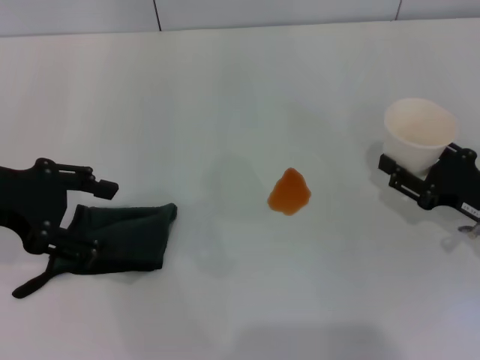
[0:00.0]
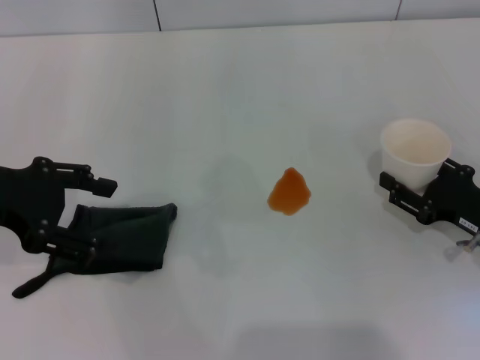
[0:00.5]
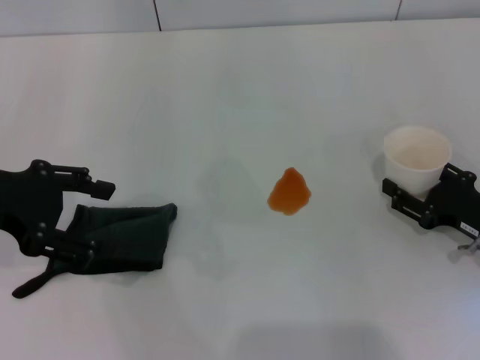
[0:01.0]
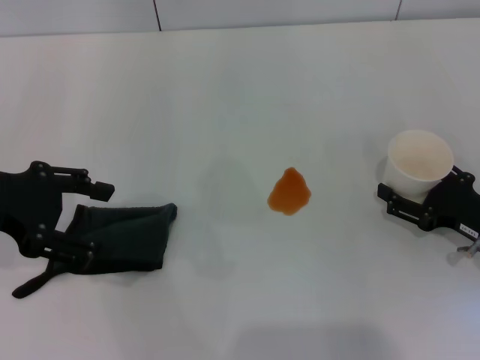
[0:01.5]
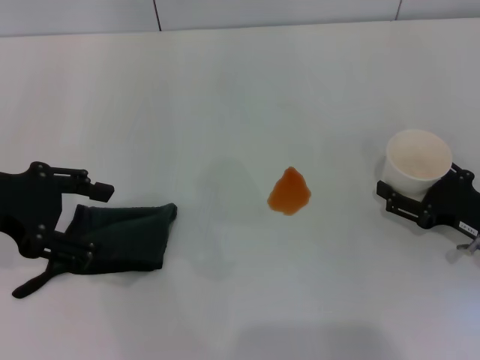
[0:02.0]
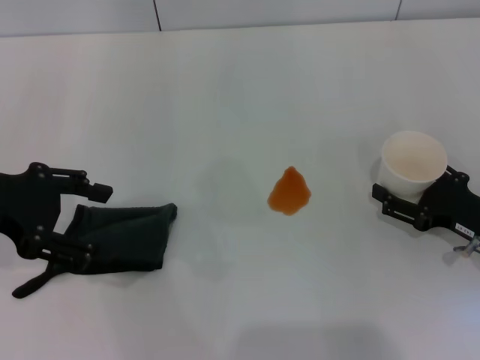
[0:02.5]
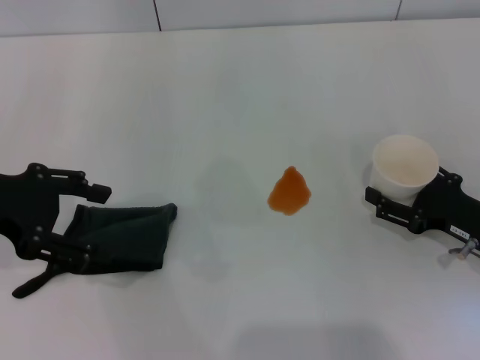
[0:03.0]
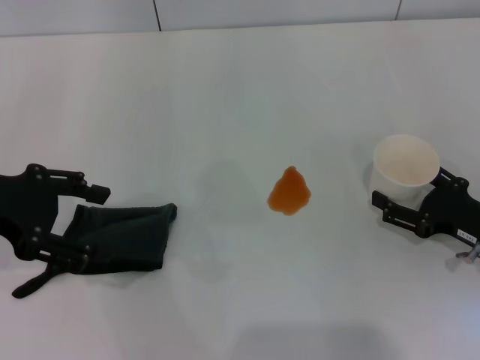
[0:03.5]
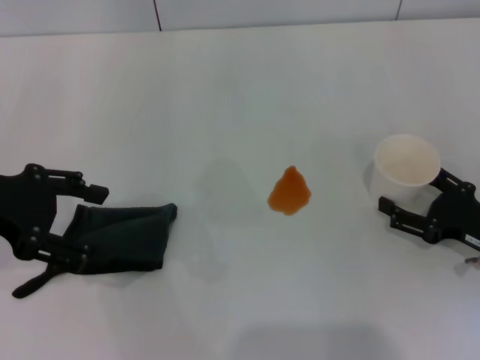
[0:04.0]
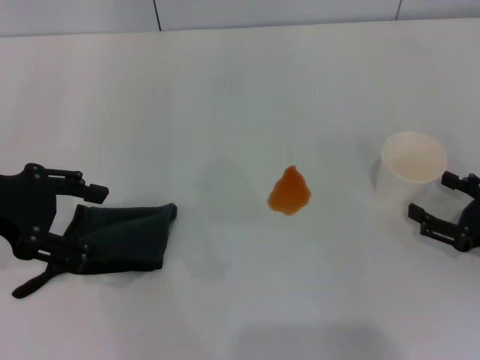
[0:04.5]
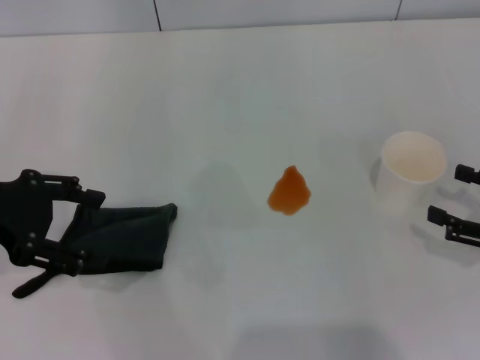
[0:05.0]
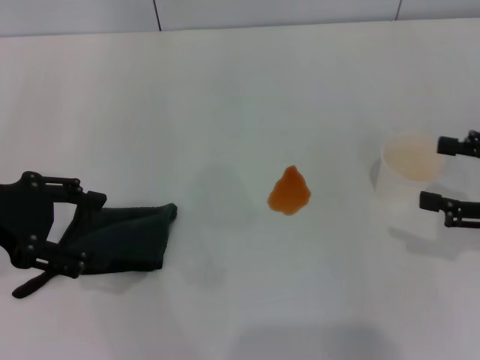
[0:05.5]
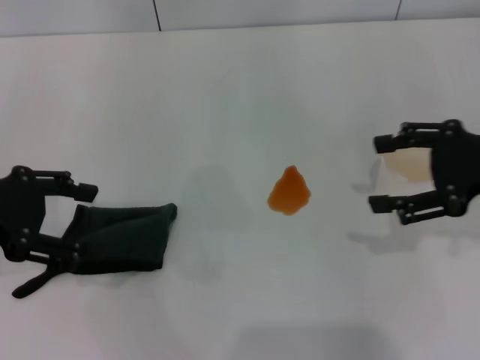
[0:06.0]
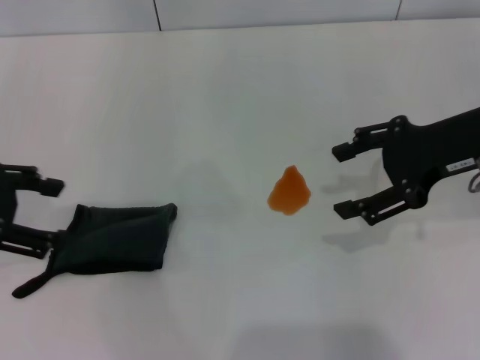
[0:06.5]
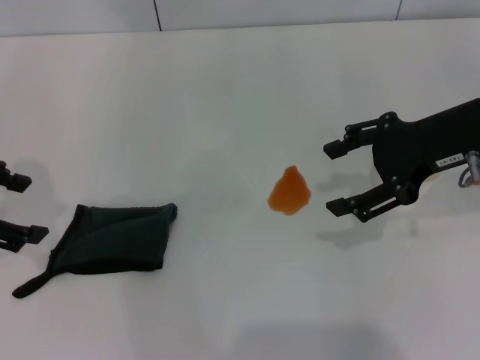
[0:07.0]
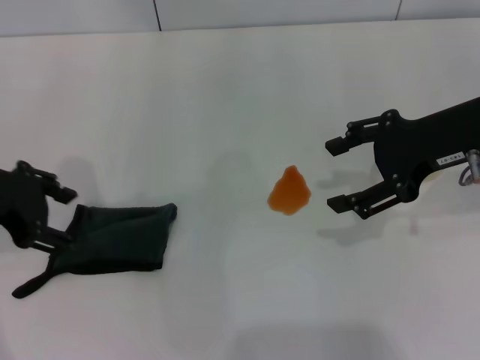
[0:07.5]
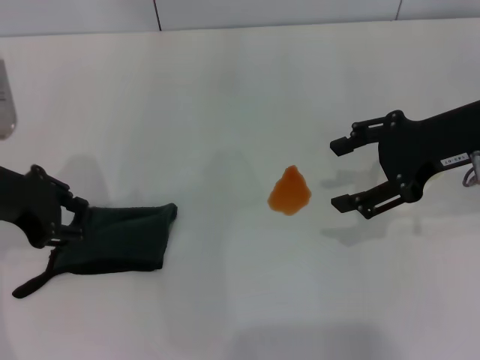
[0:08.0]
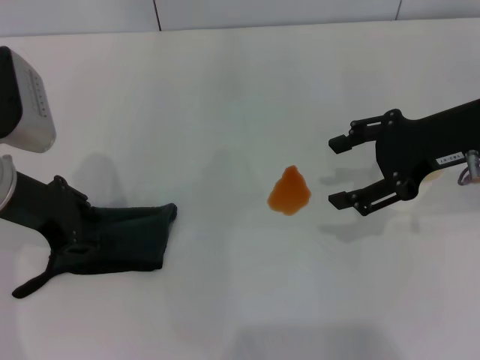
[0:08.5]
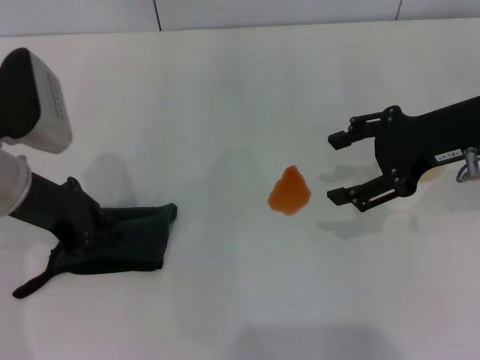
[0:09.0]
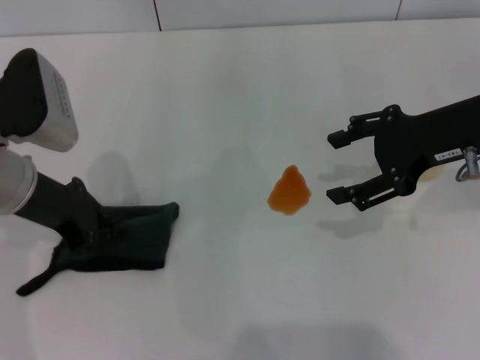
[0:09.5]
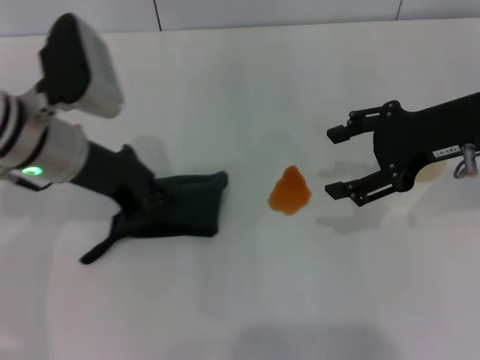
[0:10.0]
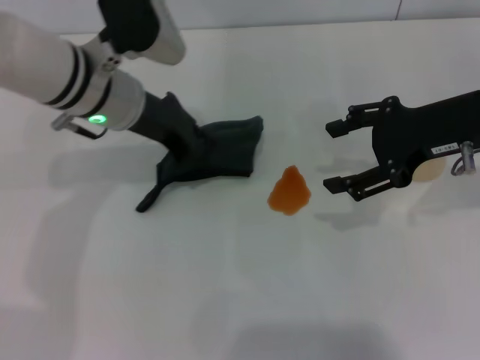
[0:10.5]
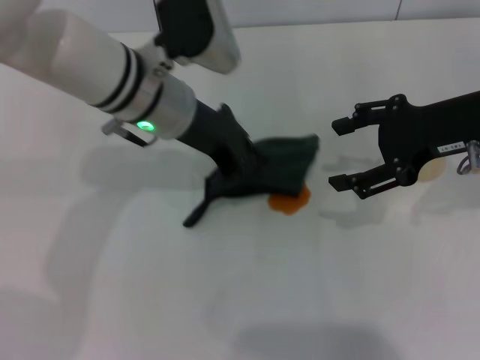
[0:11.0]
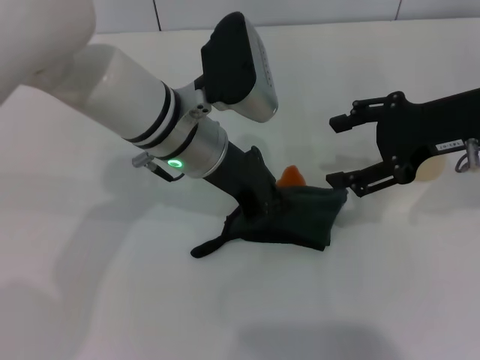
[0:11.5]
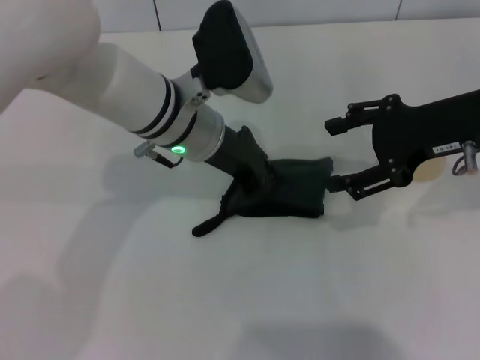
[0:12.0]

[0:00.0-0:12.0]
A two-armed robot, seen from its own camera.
Step, 0.0 to 4.5 s: Stand the paper cup upright with the right gripper.
Step, 5.0 to 9.0 s: Grasp the rag with the left gripper.
0.0 to 2.0 s: The right gripper opens its fingers.
2.0 to 4.0 s: The two grippers keep their place.
4.0 to 6.0 s: The right gripper heads upward, covering roughly 15 cm.
6.0 to 8.0 s: The right gripper ends up about 5 cm from where it was, while the left gripper shifts by roughly 5 cm.
8.0 to 10.0 s: The left gripper travels to the right by approximately 10 cm, and closes its fingers.
10.0 to 12.0 s: The left gripper shifts some 10 cm to the right.

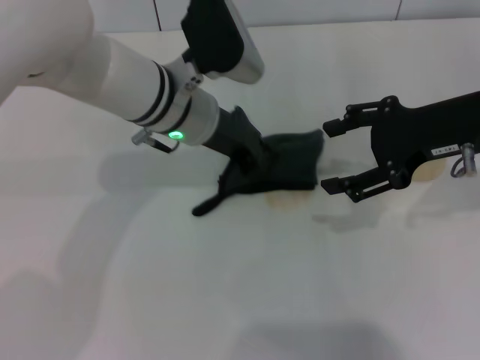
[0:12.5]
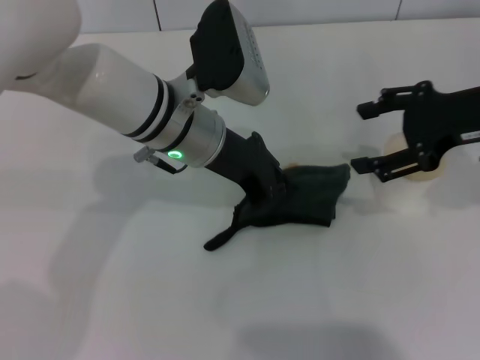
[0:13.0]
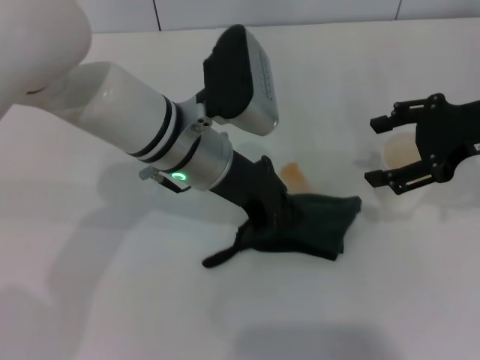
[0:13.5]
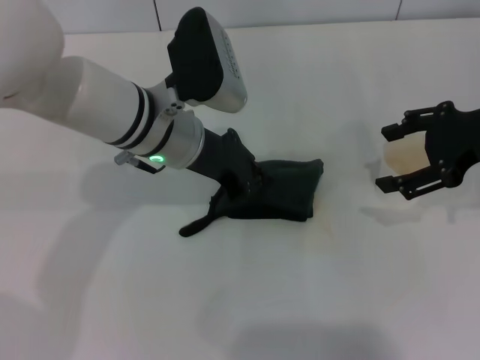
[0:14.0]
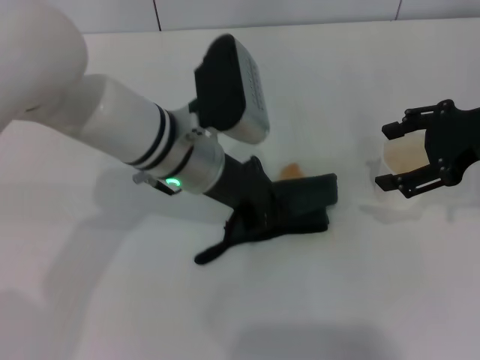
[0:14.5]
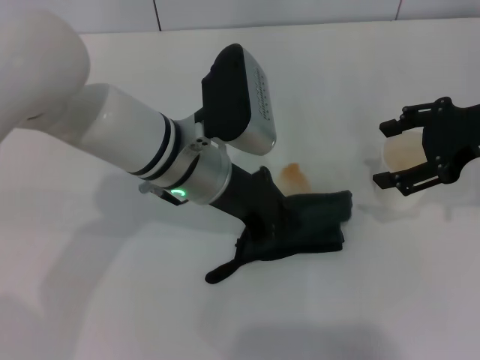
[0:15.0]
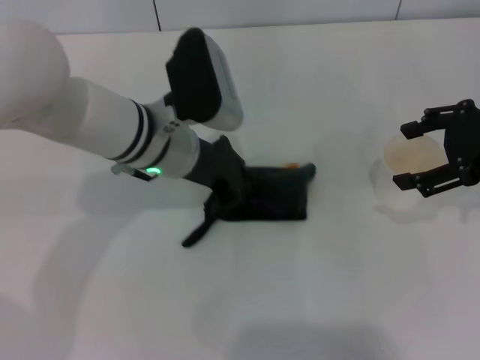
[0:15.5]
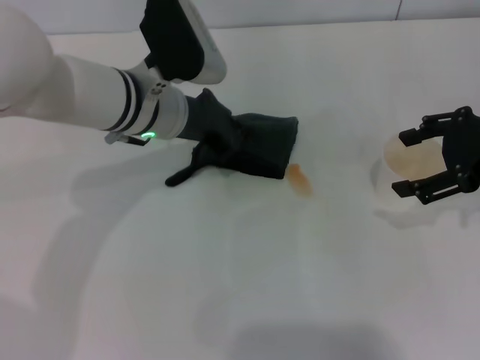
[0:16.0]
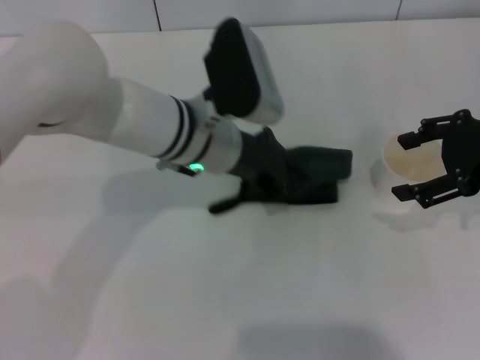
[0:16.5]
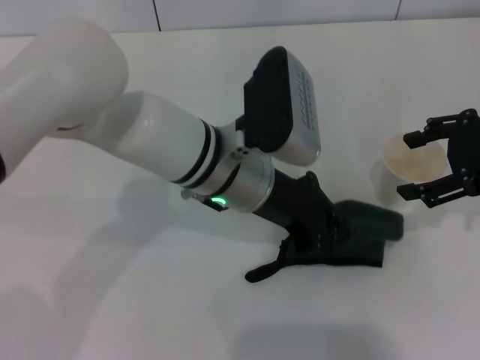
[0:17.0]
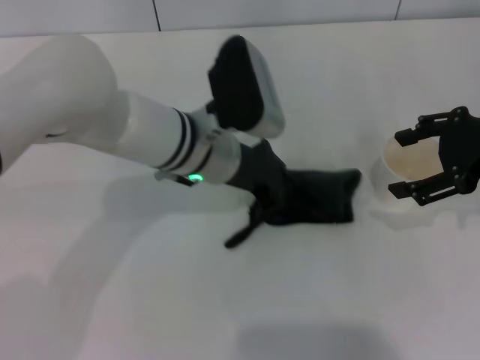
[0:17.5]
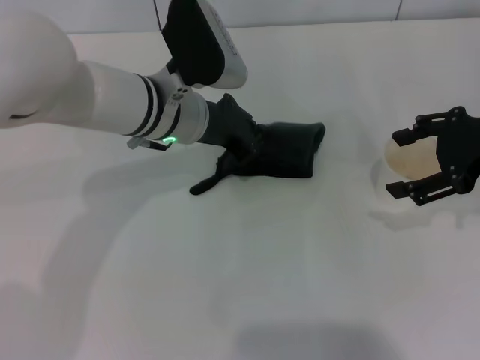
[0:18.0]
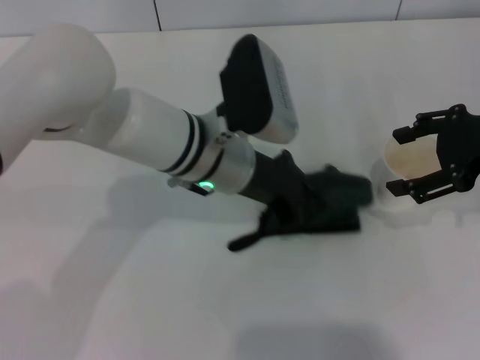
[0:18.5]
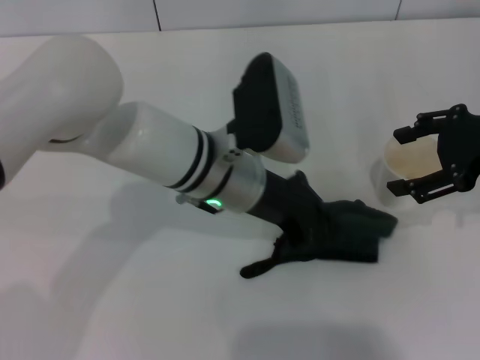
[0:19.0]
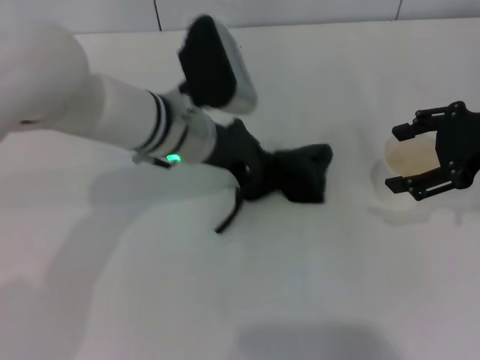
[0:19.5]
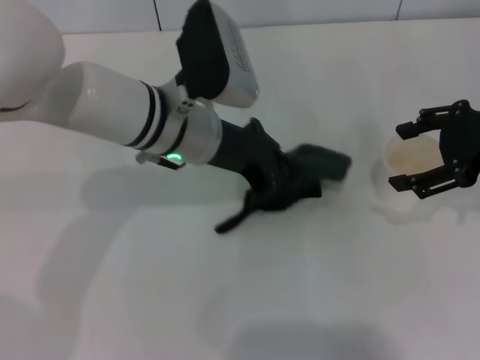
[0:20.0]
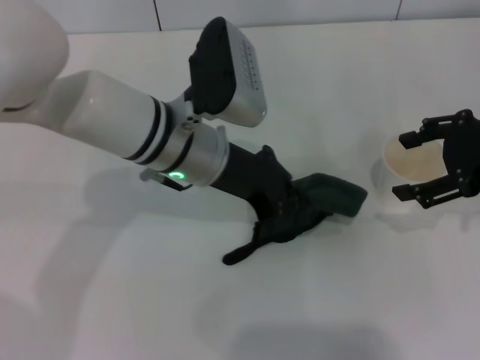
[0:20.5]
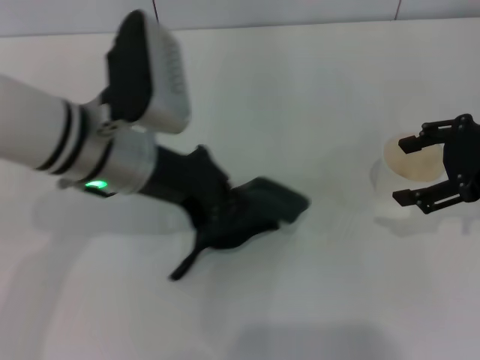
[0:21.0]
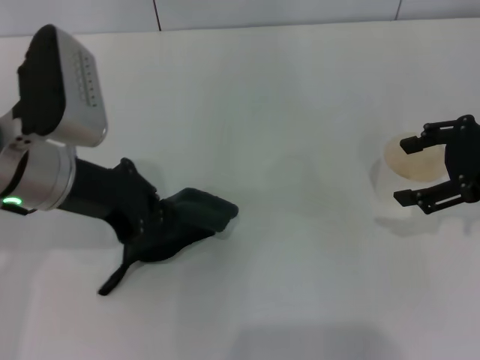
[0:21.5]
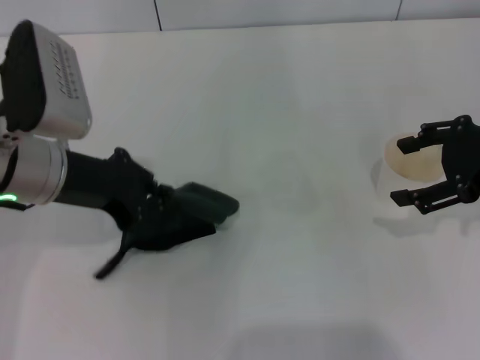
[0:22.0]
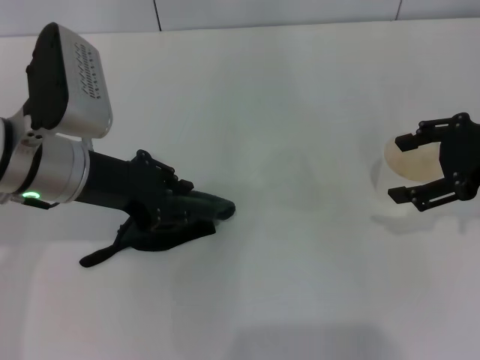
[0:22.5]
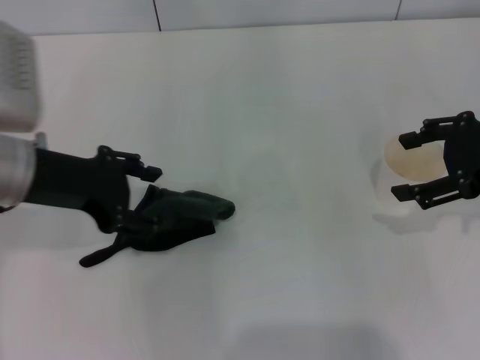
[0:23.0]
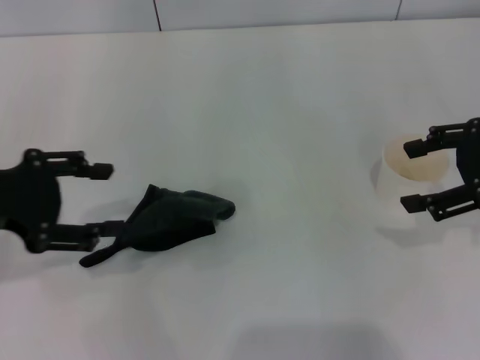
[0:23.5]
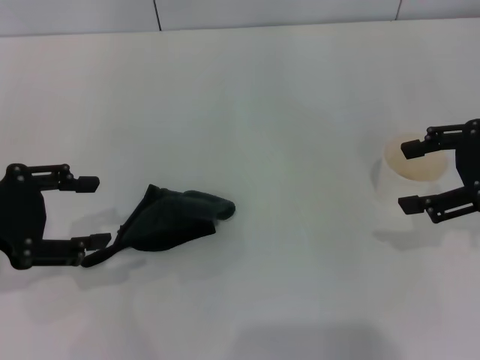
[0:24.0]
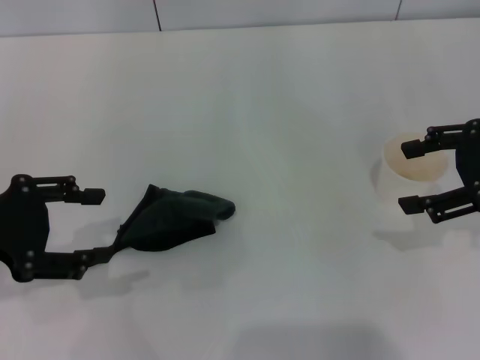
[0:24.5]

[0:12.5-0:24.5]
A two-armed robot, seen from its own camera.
Step, 12.5 to 20.5 s: Wipe the stains off the table with the left gripper.
Step, 21.5 to 23.0 s: Place the rag on the table with the left gripper.
16.5 to 18.5 s: The left gripper goes forward and backward, some 5 cm each way, reversing 2 times.
18.5 to 20.5 s: There are only small adjustments of the grippers.
20.5 to 22.5 s: The left gripper shifts some 10 cm to the left.
22.5 to 24.5 s: The left gripper shifts approximately 15 cm to the left and backward, and opens up.

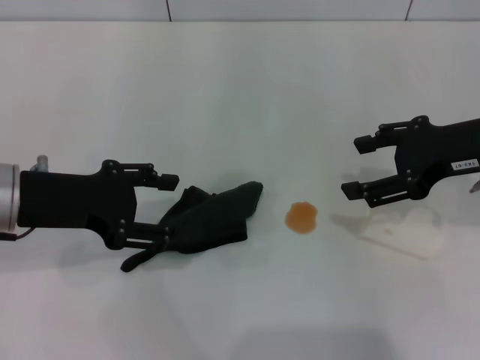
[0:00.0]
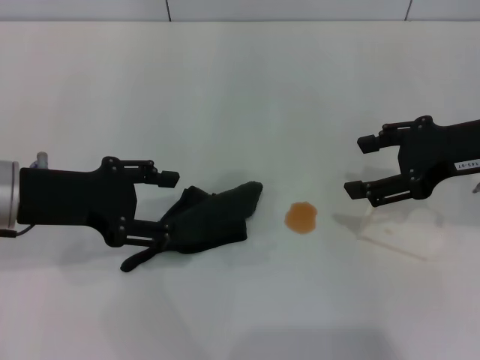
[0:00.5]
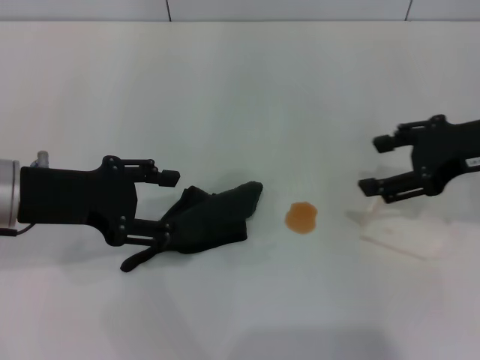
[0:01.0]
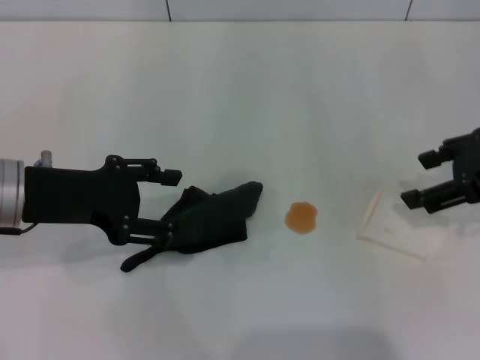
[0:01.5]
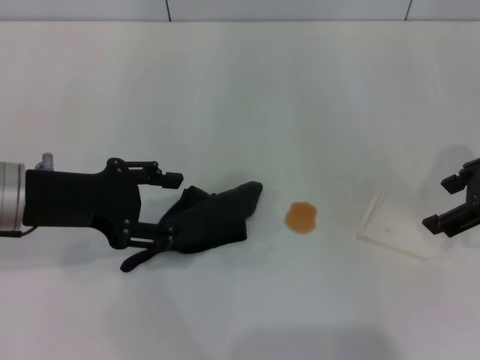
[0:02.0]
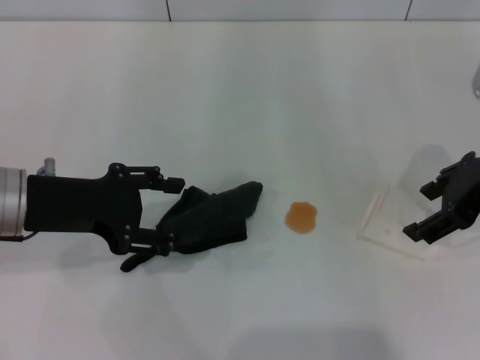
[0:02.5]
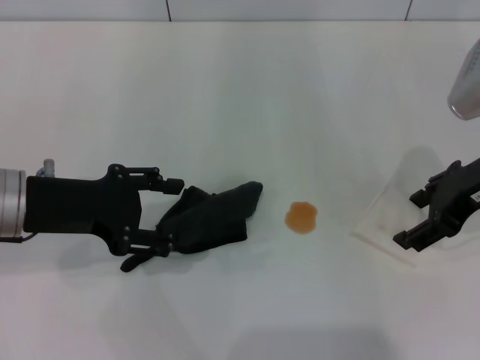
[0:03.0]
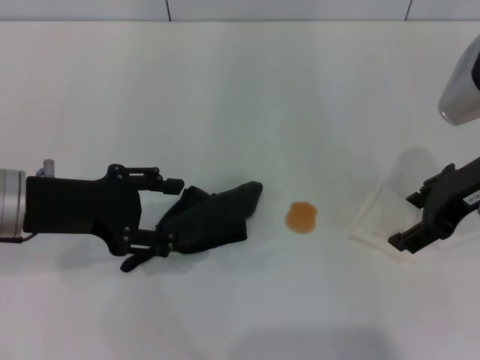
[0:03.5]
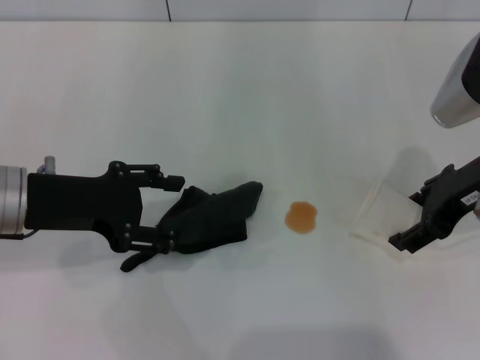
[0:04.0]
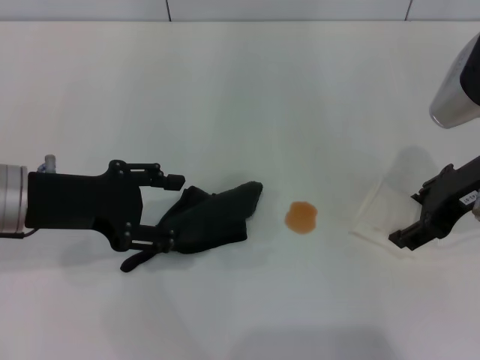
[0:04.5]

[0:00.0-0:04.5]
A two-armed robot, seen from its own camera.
Step, 0.0 to 4.0 s: Grasp the paper cup with the right gripper.
2.0 to 4.5 s: The right gripper ends up roughly 5 cm from where it was.
